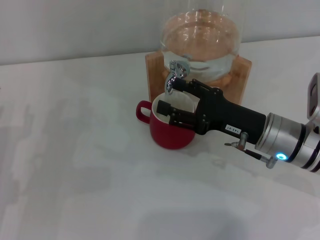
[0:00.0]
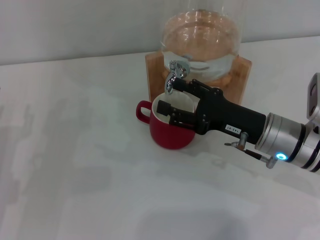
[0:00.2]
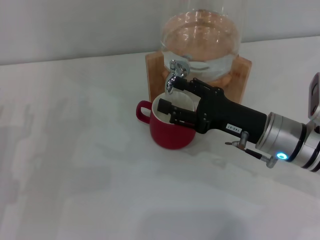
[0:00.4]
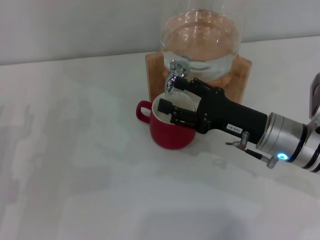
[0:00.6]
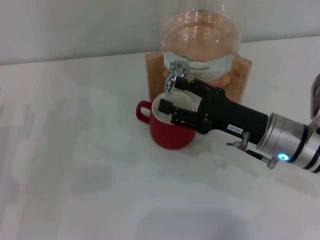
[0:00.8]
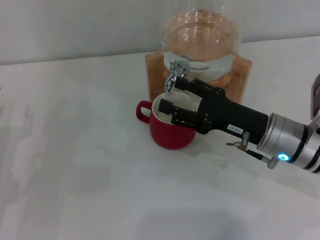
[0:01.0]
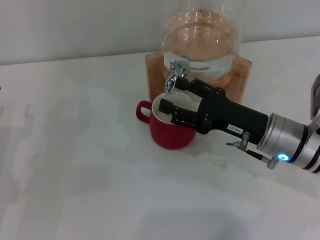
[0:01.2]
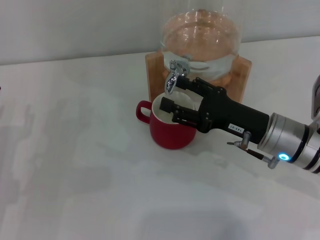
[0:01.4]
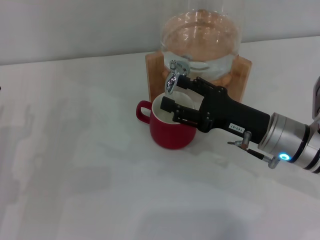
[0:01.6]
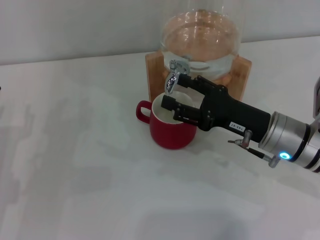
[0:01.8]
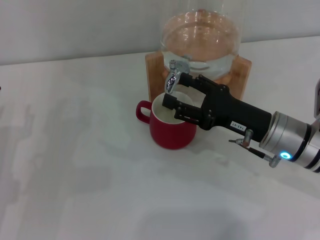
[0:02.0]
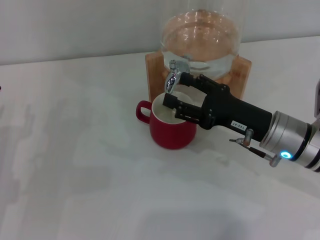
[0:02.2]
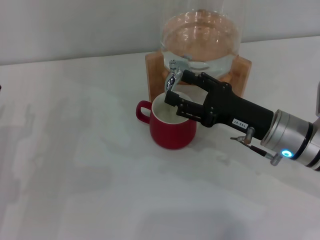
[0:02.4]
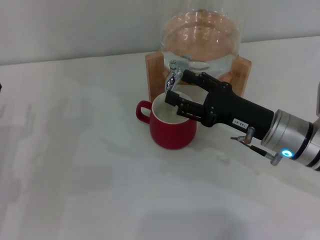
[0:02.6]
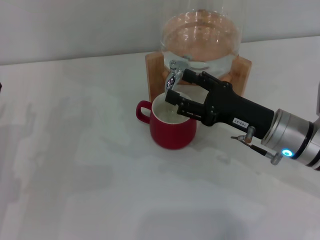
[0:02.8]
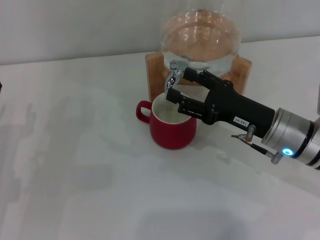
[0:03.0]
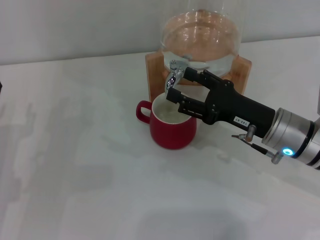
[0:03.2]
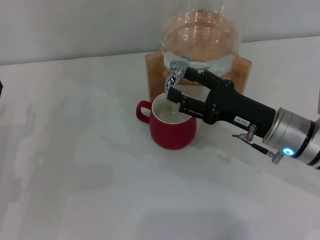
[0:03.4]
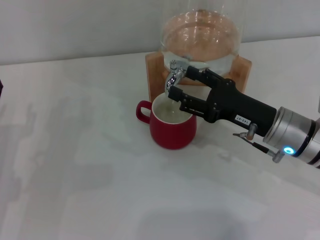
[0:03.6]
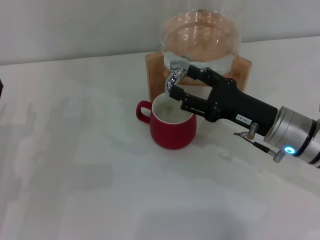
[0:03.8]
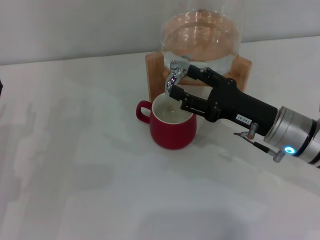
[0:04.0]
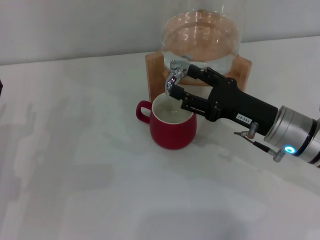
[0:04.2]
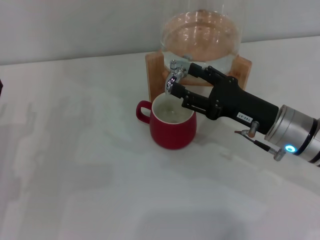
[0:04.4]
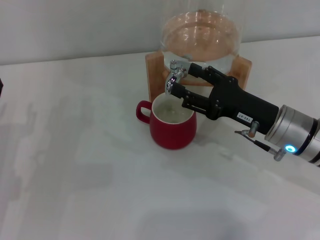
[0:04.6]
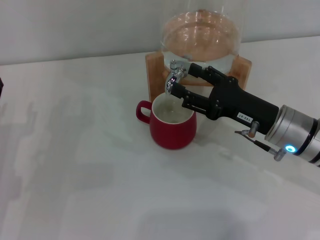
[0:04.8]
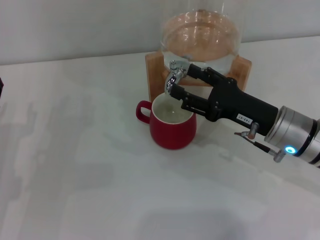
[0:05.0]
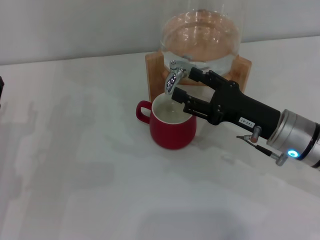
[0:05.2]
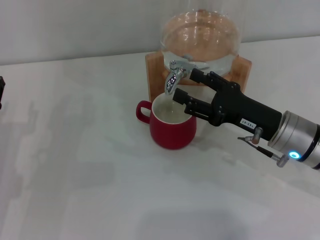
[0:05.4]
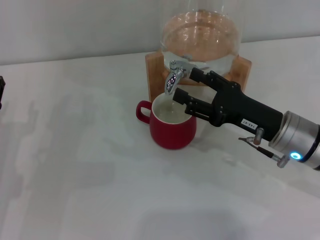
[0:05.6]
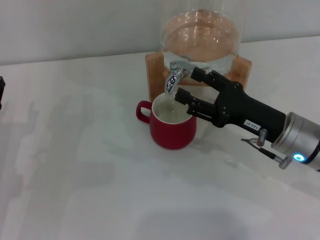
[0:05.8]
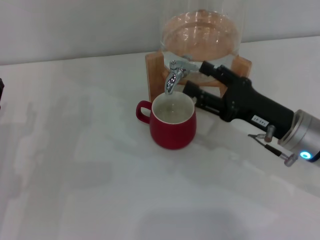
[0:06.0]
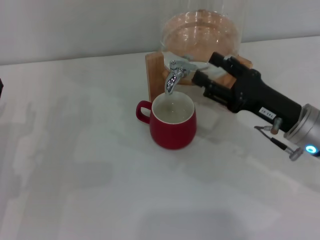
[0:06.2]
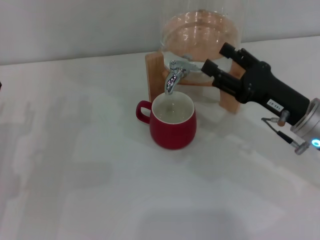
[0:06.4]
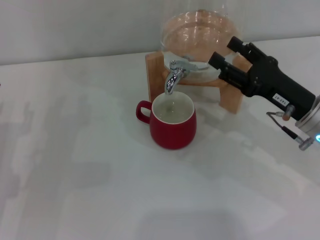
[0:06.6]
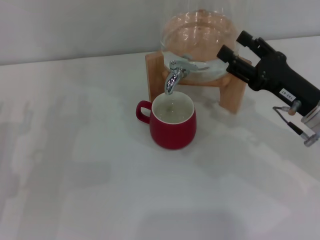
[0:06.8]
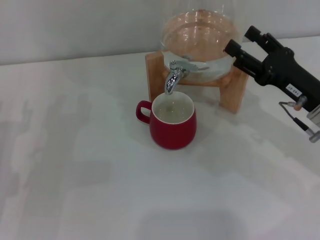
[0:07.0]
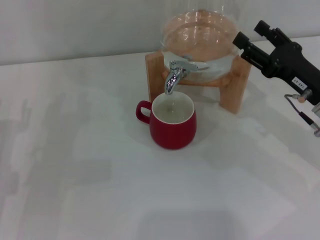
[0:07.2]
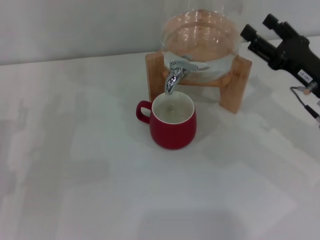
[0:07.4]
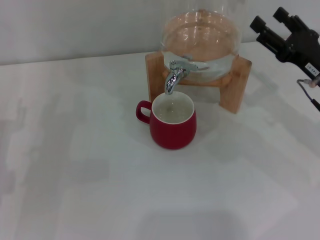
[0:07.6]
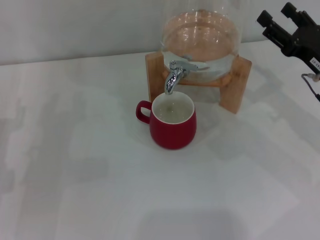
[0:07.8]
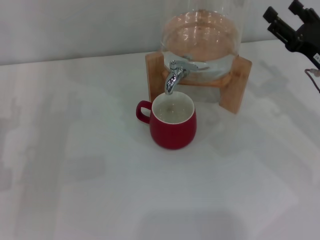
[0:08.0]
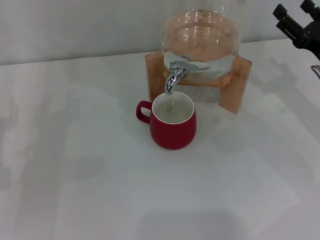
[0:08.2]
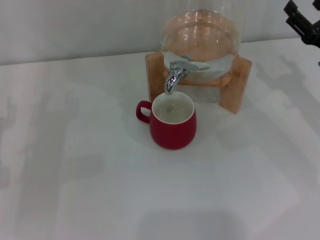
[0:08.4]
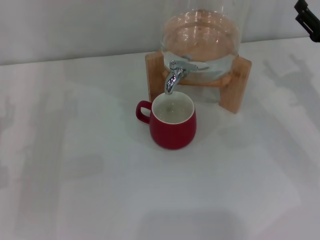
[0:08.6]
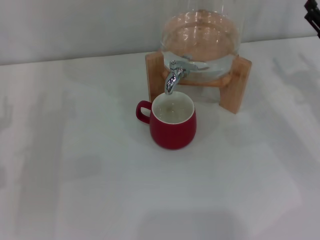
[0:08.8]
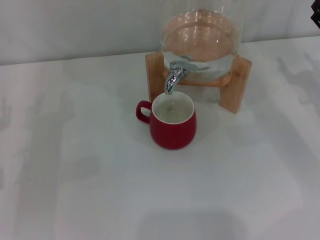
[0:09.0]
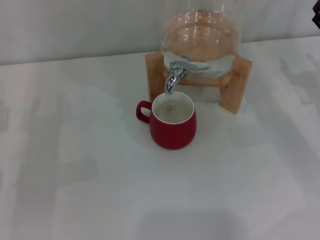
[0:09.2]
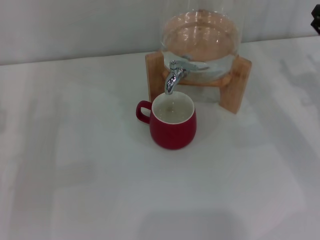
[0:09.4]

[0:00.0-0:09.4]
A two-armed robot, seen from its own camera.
Task of the whole recording: the left gripper pick up the red cup and place it horizontally under the faucet, the right gripper turn on the faucet to fill the cup, and then turn off the faucet.
Step, 0:00.0 to 0:05.0: Close the dispenser valve with the right gripper.
0:00.0 to 0:03.2: Neither gripper changes place.
0:03.2 to 0:04.8: Both grippers stay about where they are.
0:04.8 to 0:06.2: The grippers move only a little.
0:06.2 to 0:07.8: The right gripper is displaced to the right by roughly 5 cm.

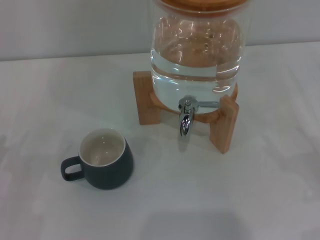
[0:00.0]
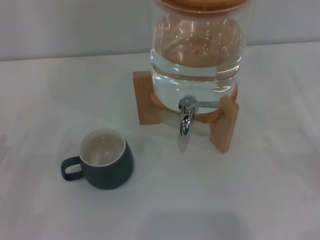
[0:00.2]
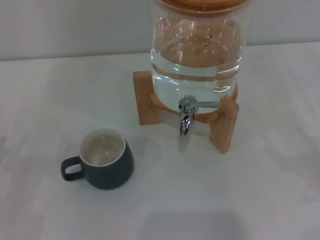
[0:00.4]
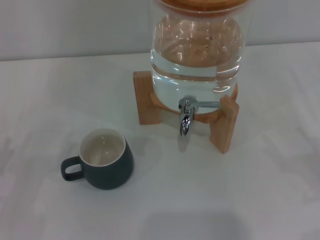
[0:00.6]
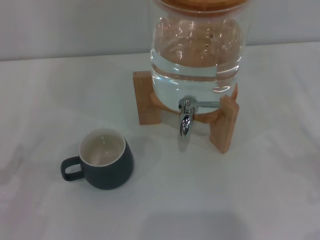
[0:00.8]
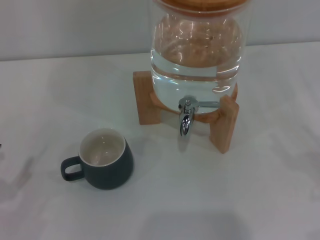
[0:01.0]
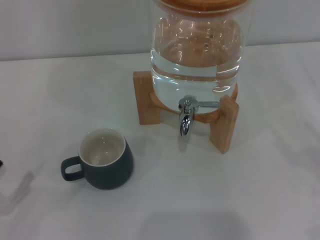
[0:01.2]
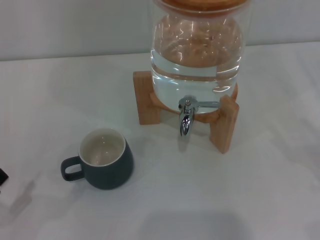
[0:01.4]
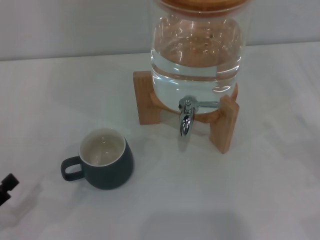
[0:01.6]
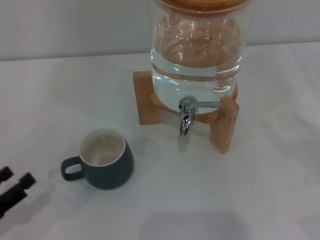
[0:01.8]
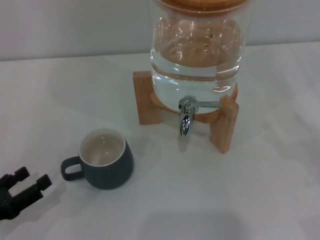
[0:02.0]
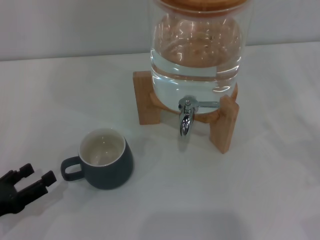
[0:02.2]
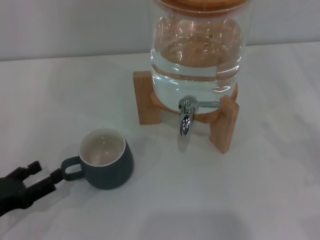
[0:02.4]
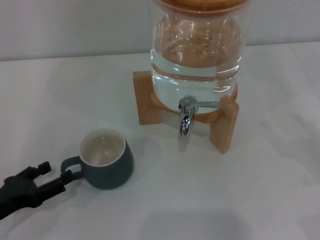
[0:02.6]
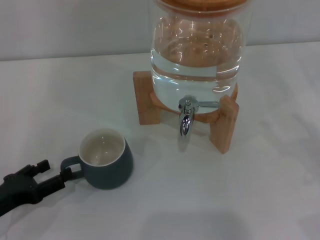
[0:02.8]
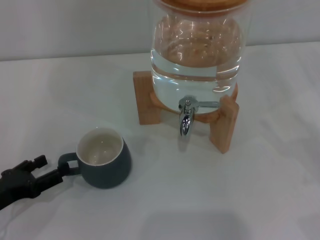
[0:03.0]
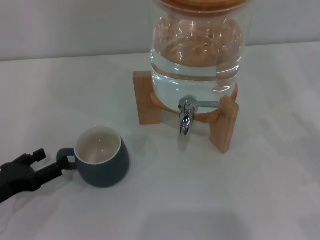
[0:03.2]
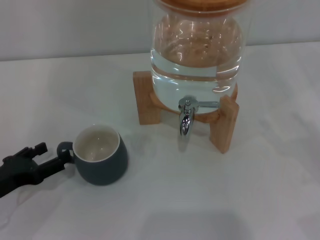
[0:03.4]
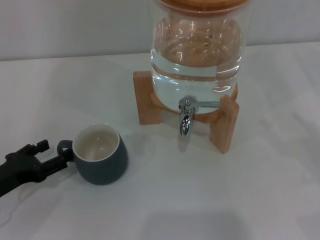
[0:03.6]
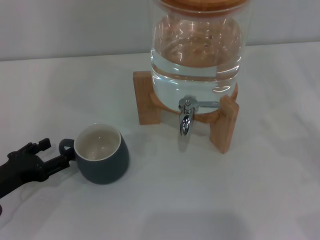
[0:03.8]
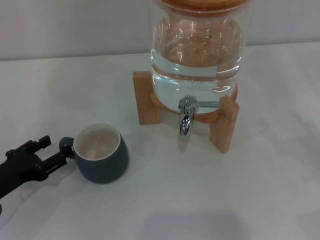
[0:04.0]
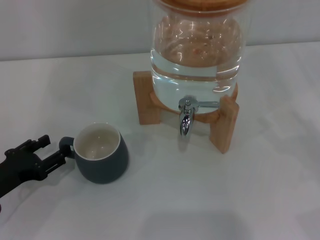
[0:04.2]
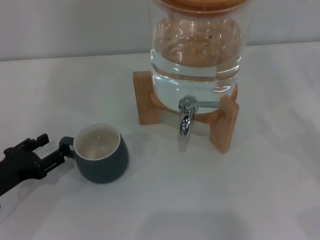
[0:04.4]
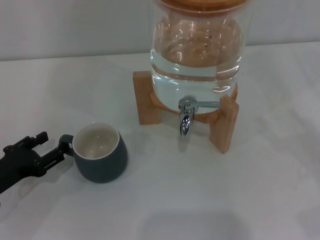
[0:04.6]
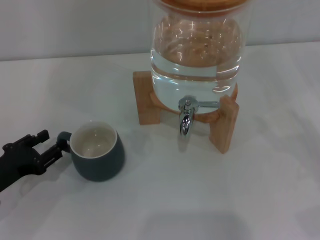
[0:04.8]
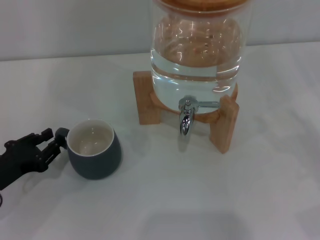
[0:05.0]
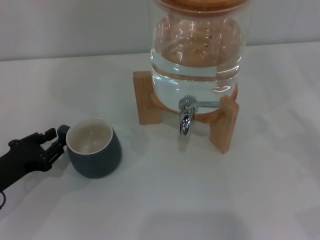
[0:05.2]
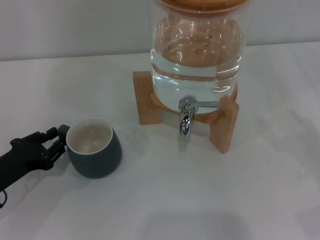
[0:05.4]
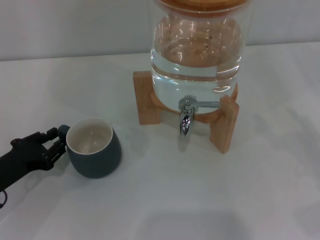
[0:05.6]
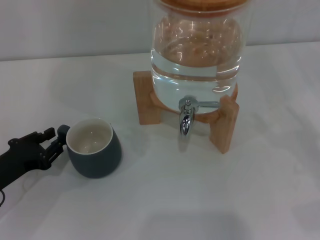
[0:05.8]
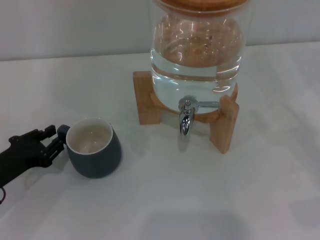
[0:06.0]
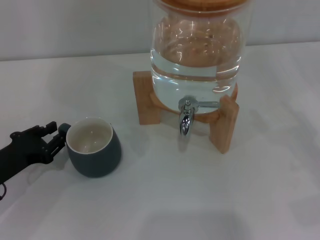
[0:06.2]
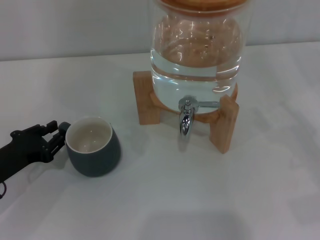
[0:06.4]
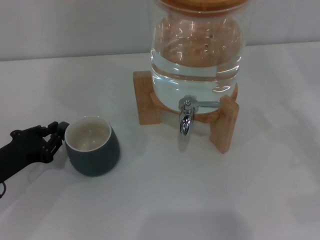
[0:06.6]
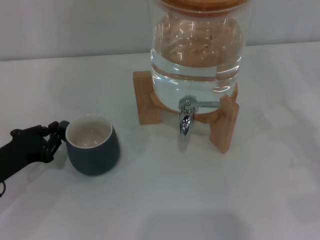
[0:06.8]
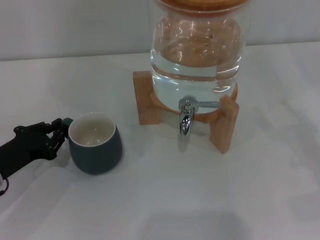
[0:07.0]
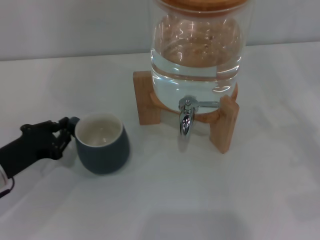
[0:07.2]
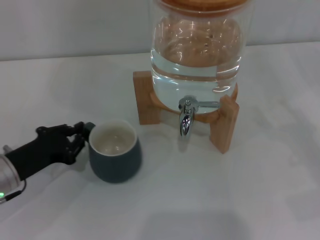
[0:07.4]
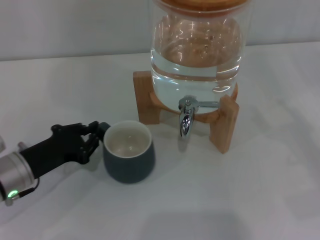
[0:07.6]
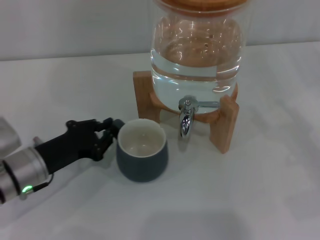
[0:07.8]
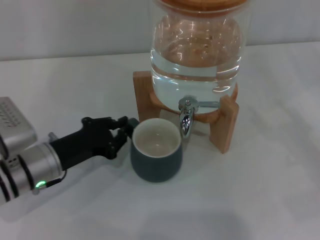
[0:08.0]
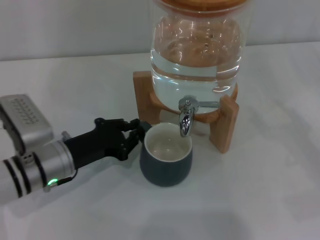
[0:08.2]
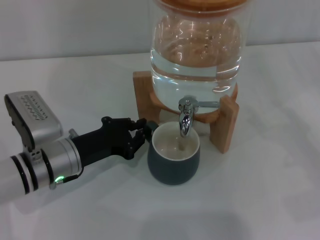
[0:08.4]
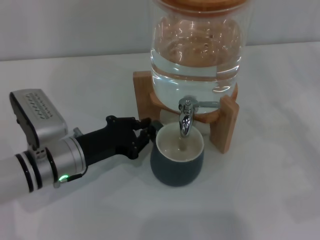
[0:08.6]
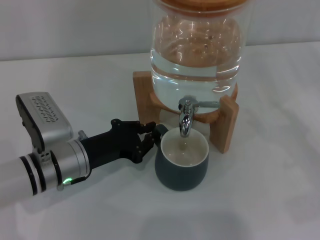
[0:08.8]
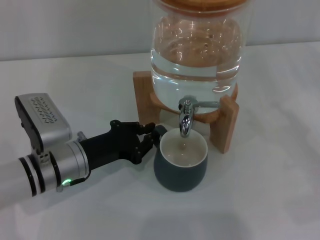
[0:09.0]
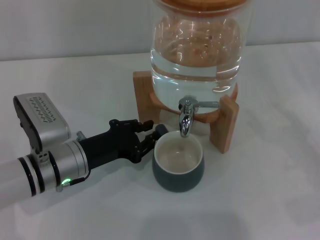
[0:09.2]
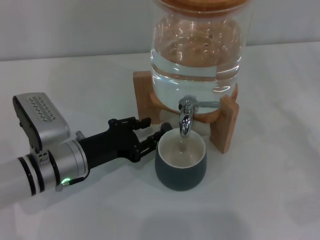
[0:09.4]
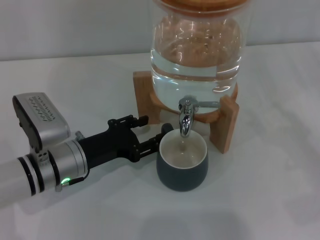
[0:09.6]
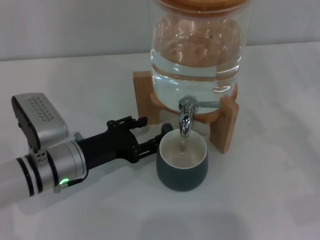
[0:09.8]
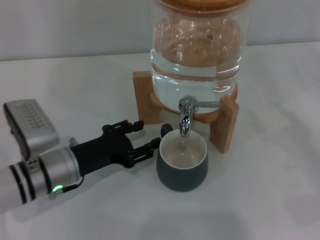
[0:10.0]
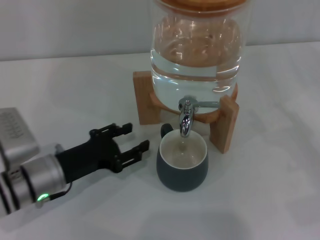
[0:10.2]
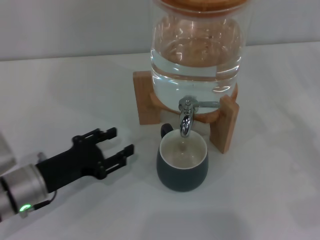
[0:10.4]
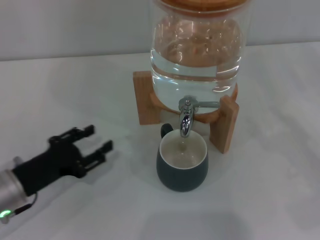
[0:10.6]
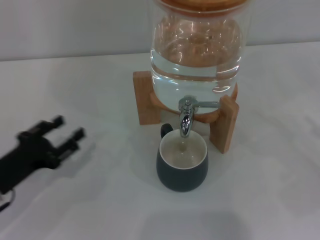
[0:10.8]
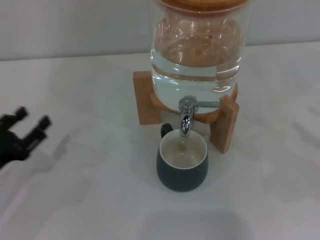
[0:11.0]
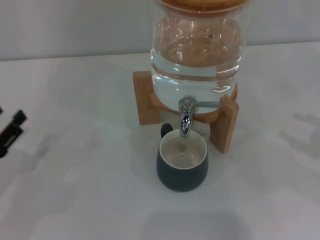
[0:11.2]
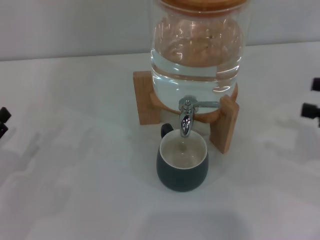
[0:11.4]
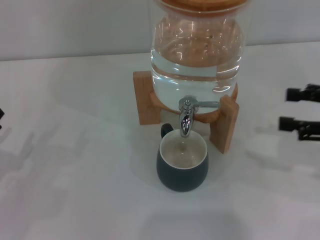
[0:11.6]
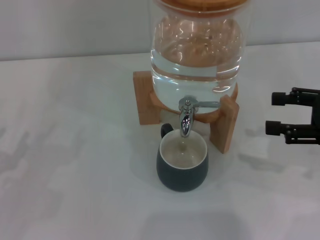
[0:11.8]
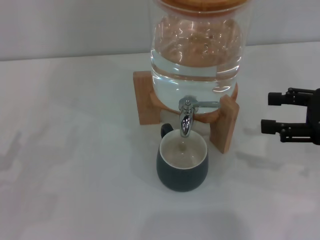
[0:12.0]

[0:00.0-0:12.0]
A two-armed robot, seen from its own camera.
Task of the whole recording: the left gripper pick up the black cup and place it horizontally under the faucet, the right gripper turn on the faucet to fill the cup, and then turn off the faucet.
Step, 0:00.0 to 0:10.0: Move the cup beneath the water dispenser nozzle with the left gripper.
0:01.6 to 0:03.0: The left gripper is displaced forward by approximately 10 cm.
0:03.0 to 0:04.4: The grippers move only a little.
0:04.4 to 0:06.0: The left gripper closes. Meanwhile the right gripper closes up.
0:06.0 to 0:07.6: The right gripper closes. Meanwhile the left gripper shifts approximately 5 cm to the right.
0:07.6 to 0:09.0: The left gripper goes about 5 cm to the right.
0:09.0 to 0:10.4: The left gripper goes roughly 5 cm to the left, and opens its fingers.
0:10.4 to 0:12.0: The right gripper heads upward, to the left and forward, covering approximately 15 cm, and opens its fingers; the left gripper heads to the left, covering some 15 cm.
